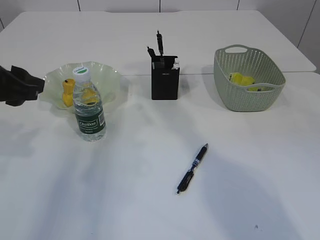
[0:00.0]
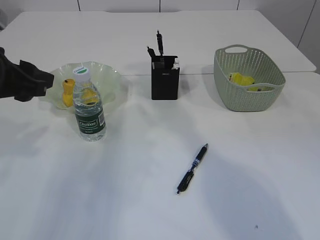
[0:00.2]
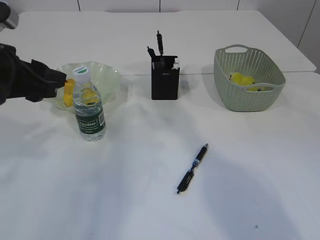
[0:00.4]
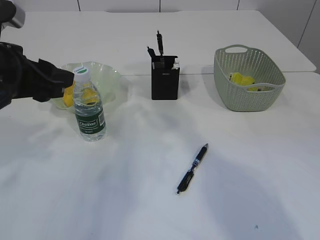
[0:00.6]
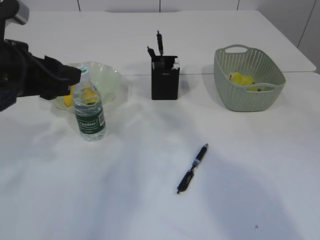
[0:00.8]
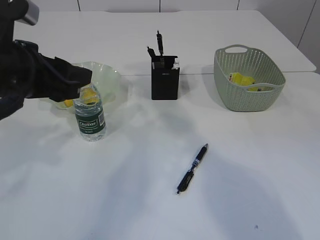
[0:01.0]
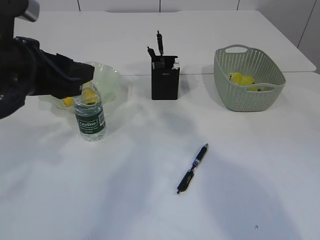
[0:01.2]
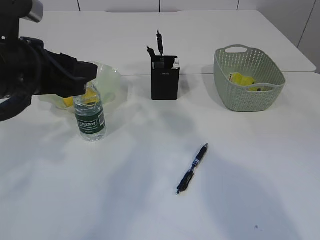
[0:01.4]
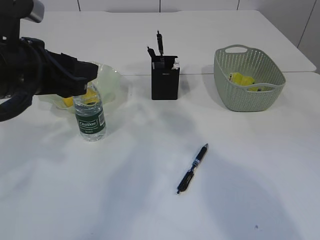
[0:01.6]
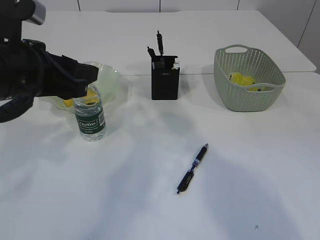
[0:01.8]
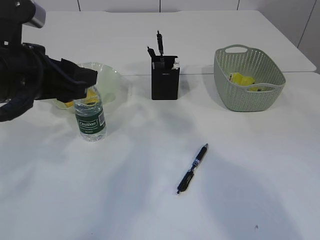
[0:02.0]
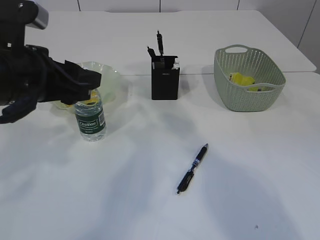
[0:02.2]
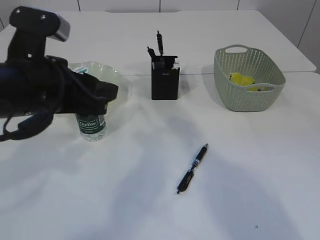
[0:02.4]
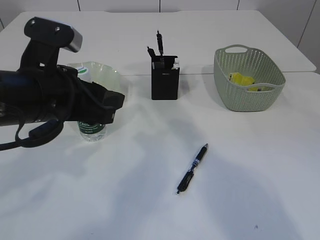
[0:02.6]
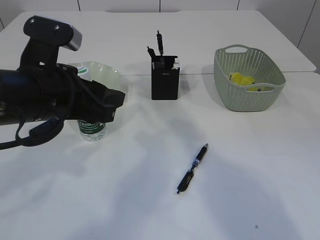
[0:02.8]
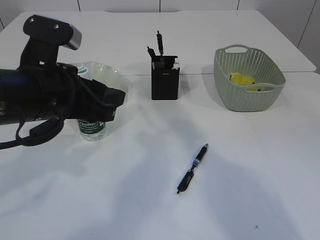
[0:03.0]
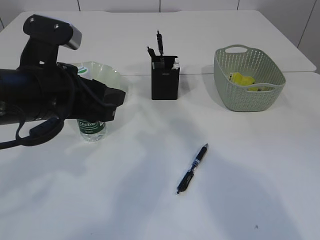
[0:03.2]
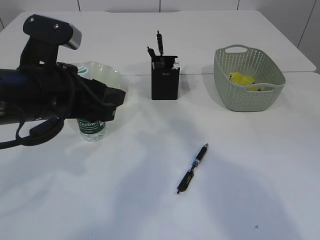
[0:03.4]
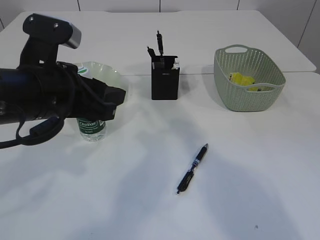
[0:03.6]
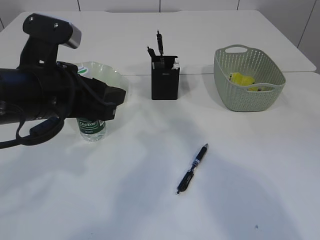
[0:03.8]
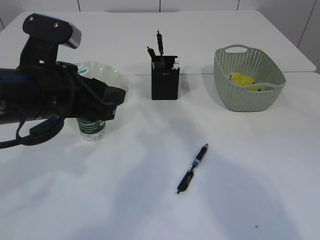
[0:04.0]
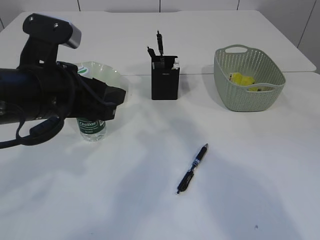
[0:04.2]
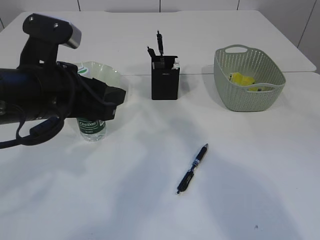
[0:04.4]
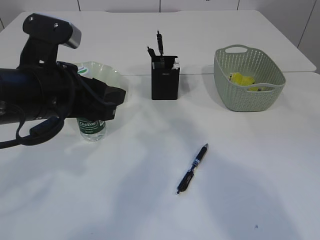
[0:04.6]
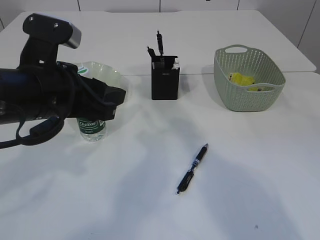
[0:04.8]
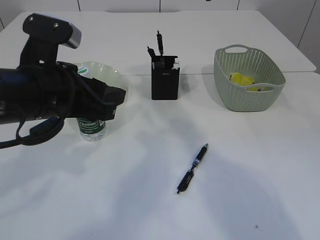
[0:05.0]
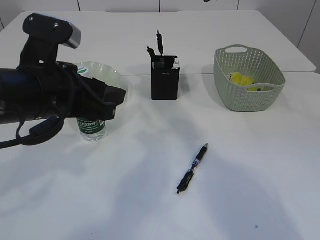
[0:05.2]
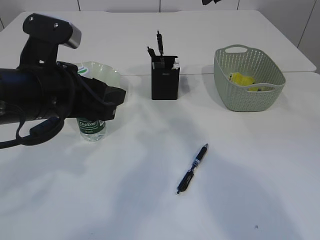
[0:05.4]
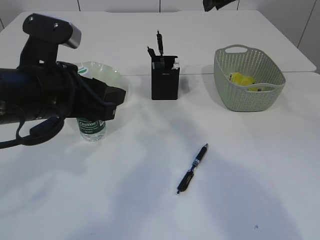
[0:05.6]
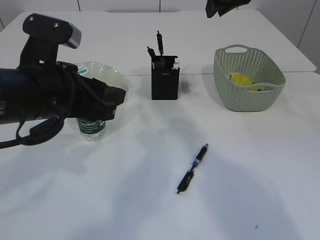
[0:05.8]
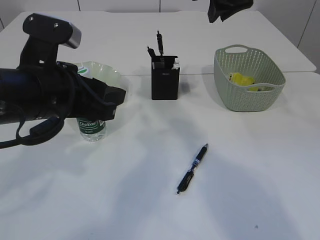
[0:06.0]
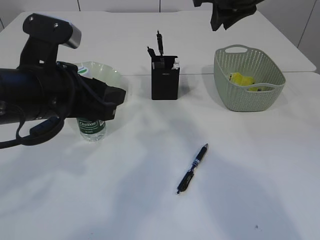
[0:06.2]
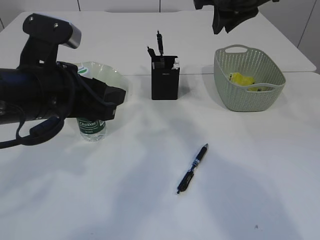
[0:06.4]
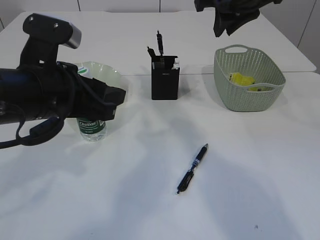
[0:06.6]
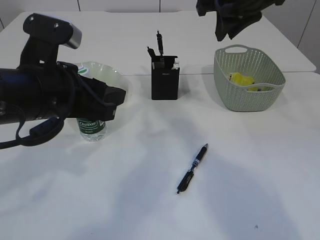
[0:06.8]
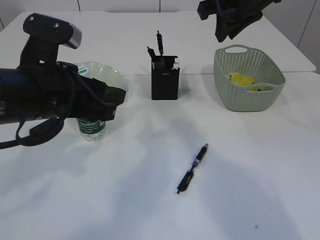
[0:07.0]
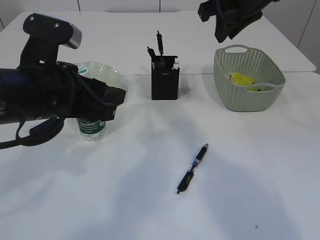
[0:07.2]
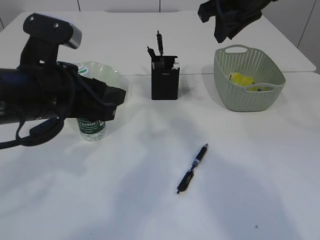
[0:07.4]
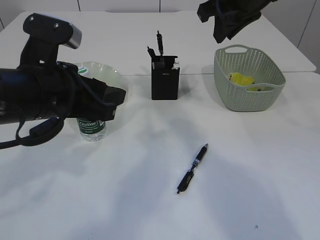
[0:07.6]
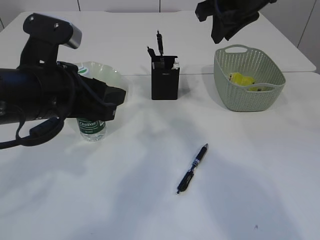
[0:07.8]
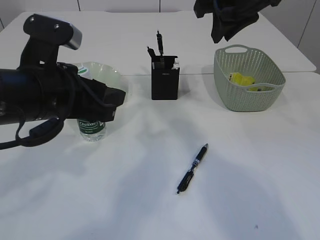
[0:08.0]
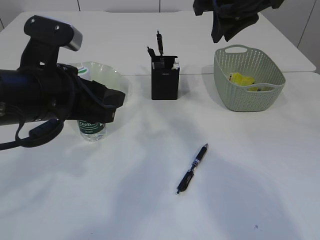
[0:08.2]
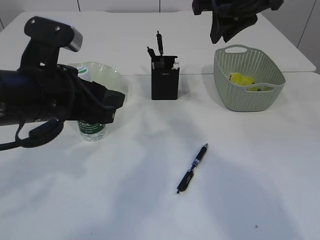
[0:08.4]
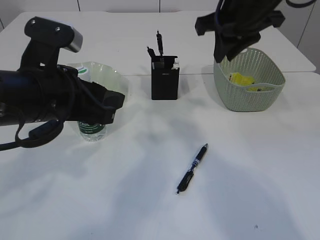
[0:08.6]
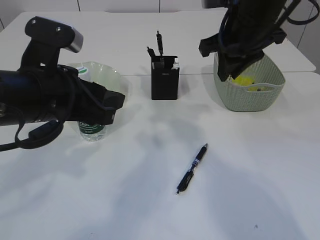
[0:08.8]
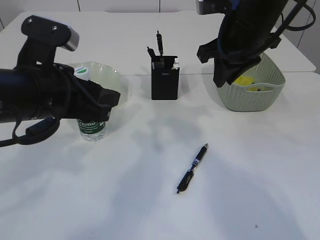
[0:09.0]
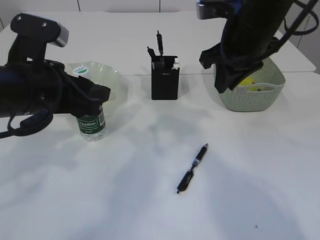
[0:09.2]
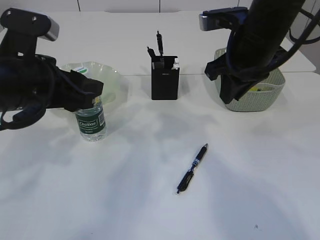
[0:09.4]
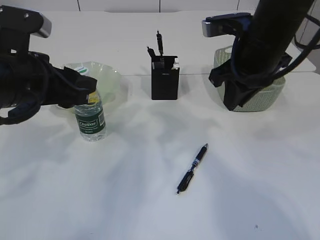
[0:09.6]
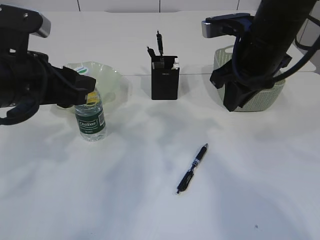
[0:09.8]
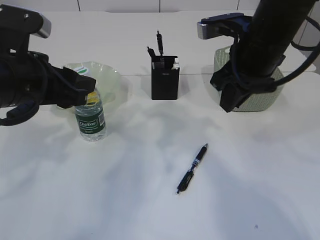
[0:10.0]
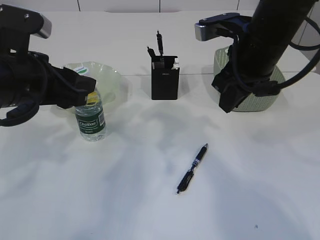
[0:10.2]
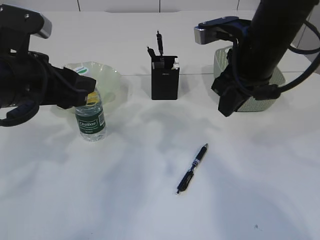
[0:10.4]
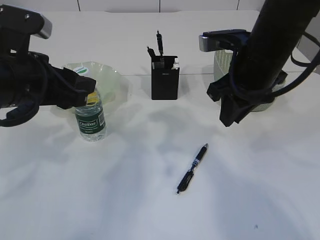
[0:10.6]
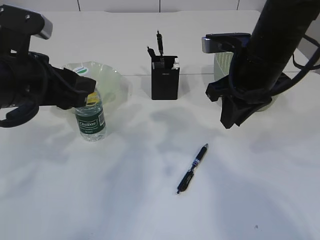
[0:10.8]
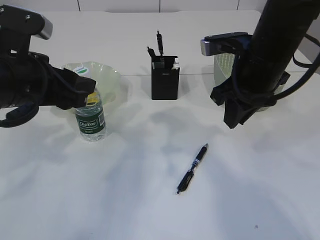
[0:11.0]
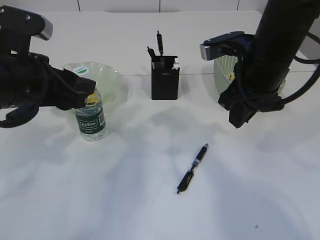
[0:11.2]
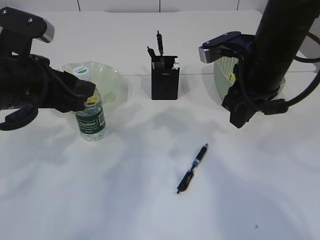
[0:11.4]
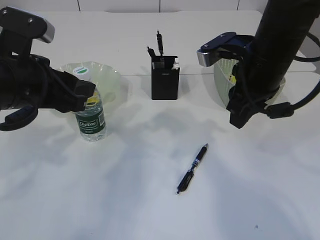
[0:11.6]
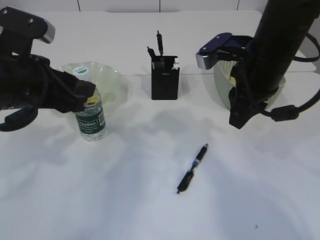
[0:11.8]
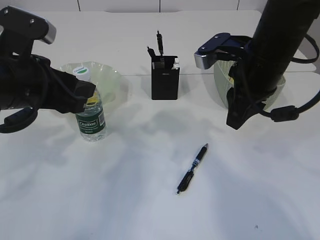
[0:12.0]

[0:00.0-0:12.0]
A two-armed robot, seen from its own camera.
0:00.0 to 0:01.6: The left gripper goes roughly 5 cm to the right.
0:01.6 to 0:03.0: The grippers move only a little.
0:03.0 to 0:04.4: Both grippers stay put.
0:04.4 to 0:06.0: The grippers stay close to where they were, moving slightly.
0:06.0 to 0:07.6: The grippers move only a little.
0:07.6 to 0:09.0: The right gripper travels downward by about 5 cm.
0:09.0 to 0:10.4: The grippers stay close to where they were, moving slightly.
0:10.4 to 0:12.0: The grippers make only small movements.

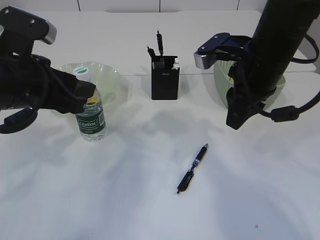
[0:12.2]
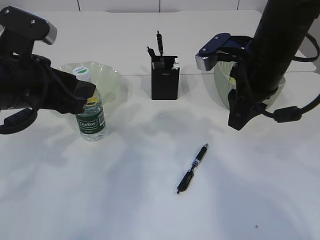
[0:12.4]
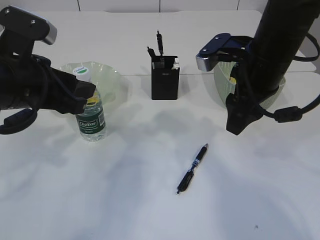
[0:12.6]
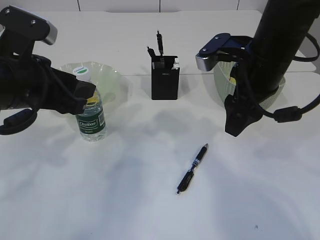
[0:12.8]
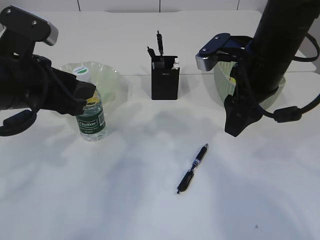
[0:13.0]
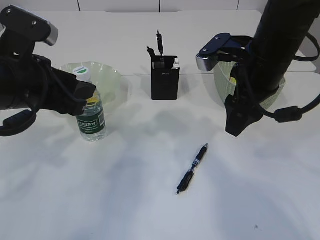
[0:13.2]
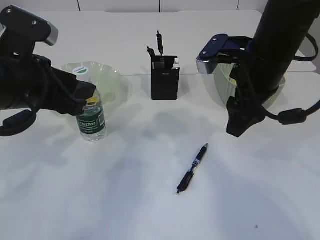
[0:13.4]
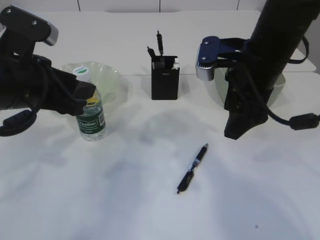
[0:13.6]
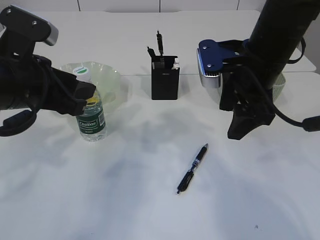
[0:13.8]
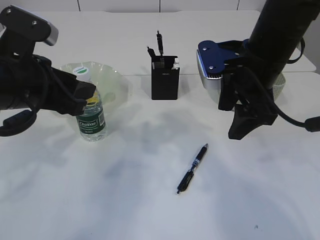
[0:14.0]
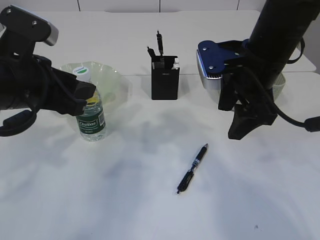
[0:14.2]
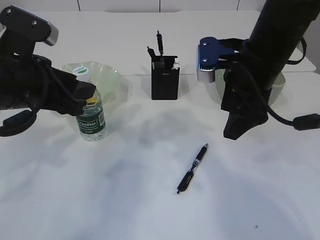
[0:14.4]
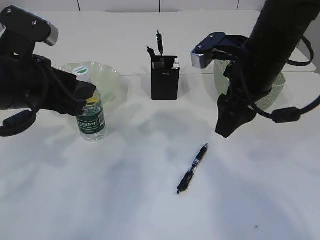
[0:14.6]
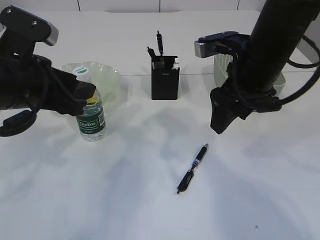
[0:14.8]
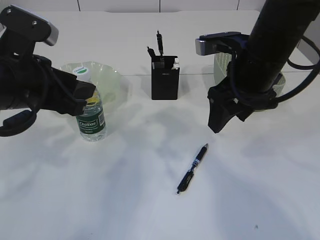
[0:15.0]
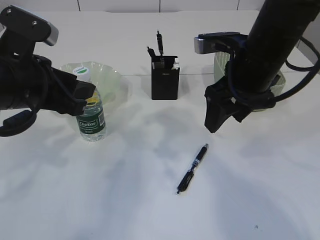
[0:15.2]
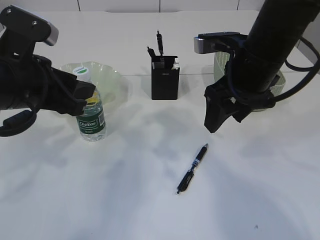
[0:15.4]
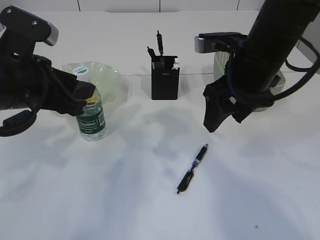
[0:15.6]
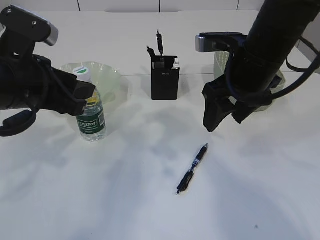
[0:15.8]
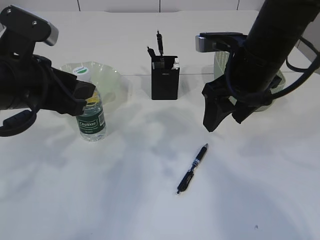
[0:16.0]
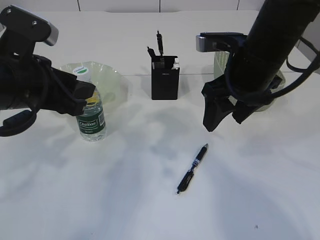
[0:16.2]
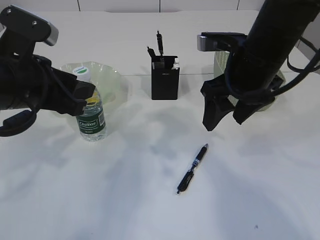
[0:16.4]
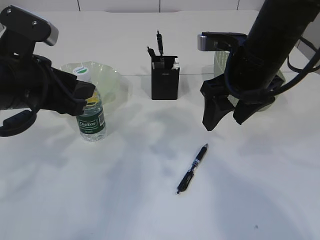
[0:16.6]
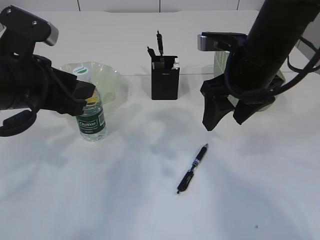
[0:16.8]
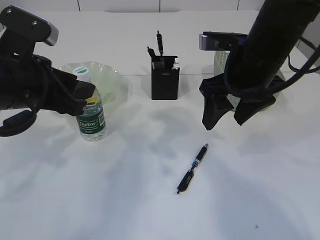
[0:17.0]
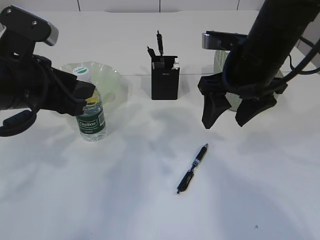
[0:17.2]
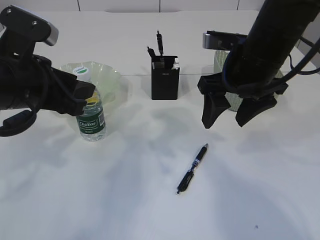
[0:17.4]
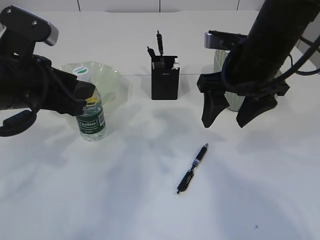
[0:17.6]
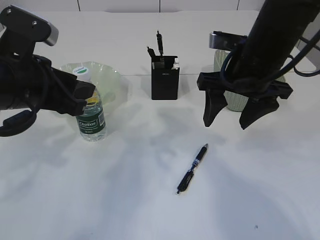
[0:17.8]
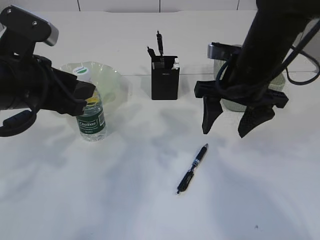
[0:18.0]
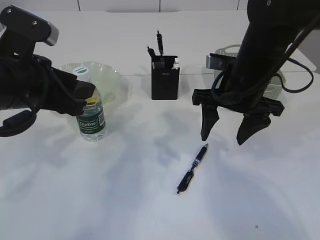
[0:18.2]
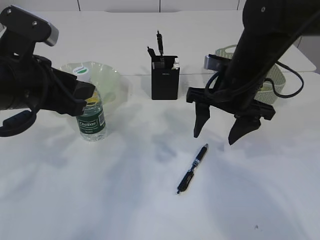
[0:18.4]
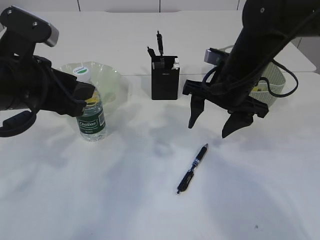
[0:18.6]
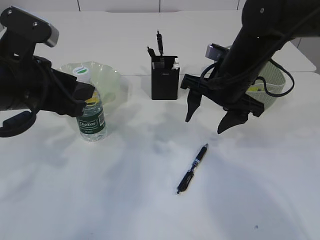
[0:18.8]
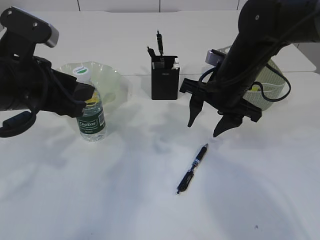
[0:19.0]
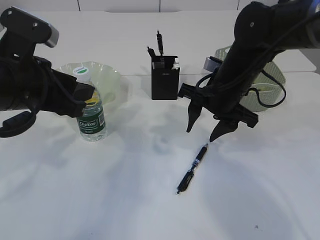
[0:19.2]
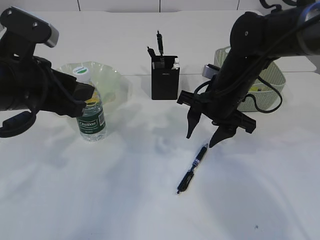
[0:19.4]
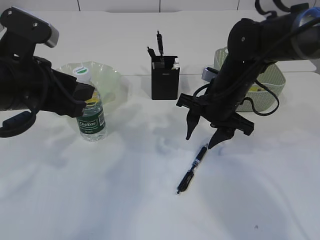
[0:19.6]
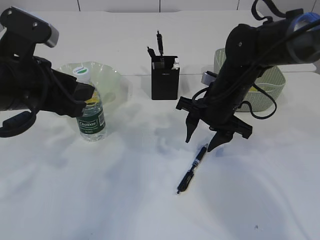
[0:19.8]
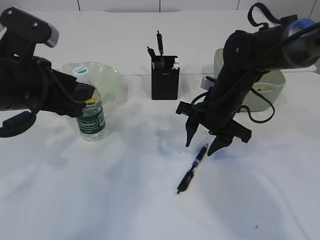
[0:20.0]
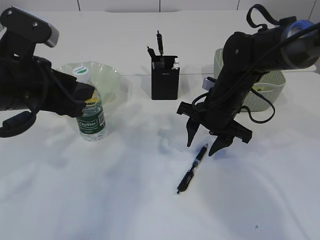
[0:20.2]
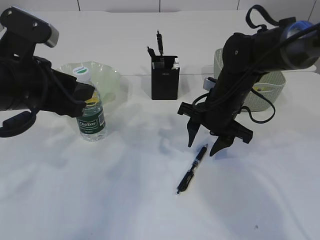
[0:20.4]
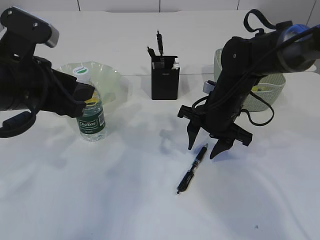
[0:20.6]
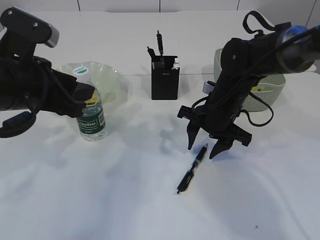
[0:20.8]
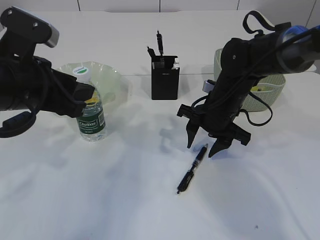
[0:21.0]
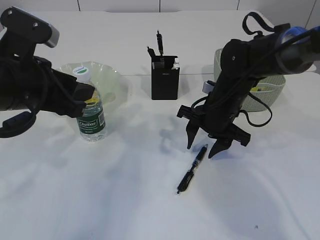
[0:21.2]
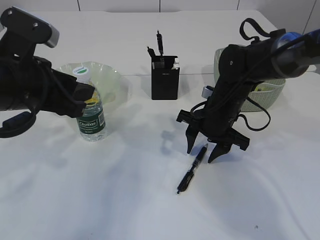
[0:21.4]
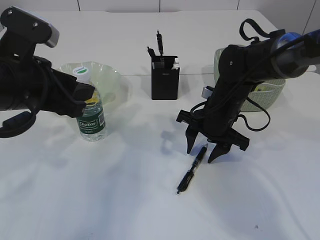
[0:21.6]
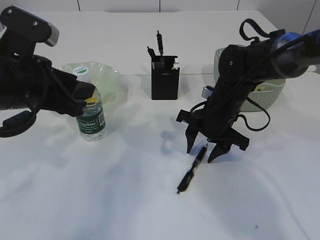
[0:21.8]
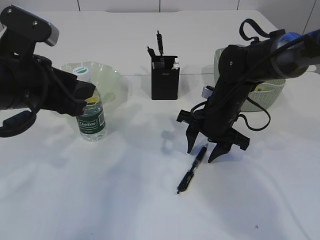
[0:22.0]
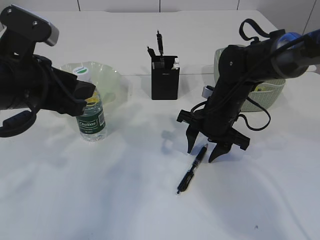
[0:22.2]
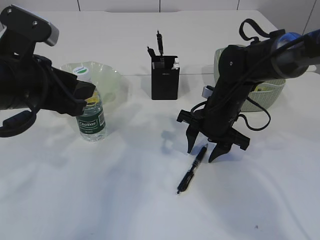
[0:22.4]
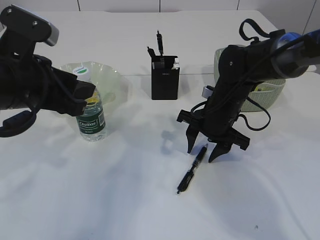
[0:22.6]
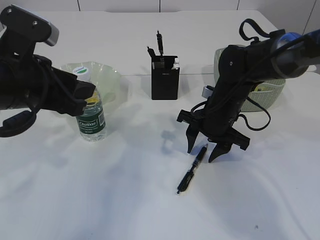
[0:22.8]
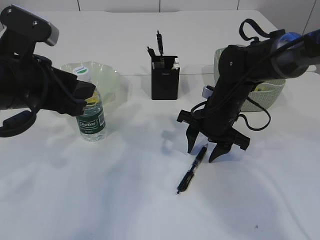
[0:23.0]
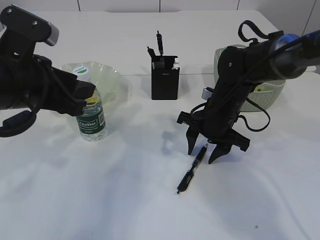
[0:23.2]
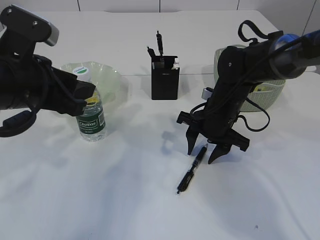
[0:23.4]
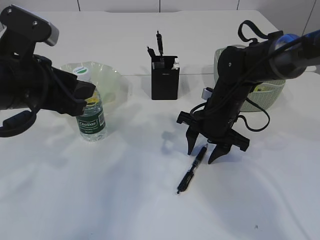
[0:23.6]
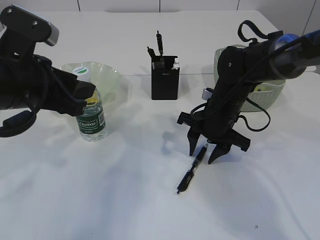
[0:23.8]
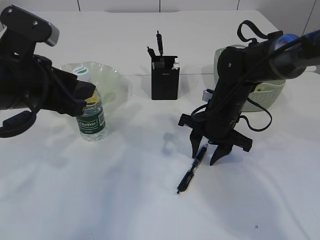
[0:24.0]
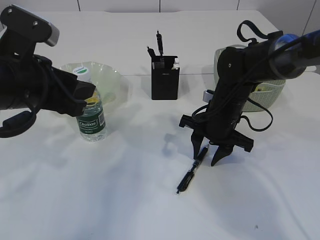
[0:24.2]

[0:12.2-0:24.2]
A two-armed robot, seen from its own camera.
0:12.2 to 0:13.8: The right gripper opens.
0:15.2 to 0:16.6: The grippers stay close to where they were, moving slightly.
0:18.2 to 0:19.8: The right gripper is displaced downward by some 5 cm.
0:19.8 to 0:21.2: There are only small adjustments of the grippers.
0:21.2 to 0:22.6: The two grippers keep their place.
0:22.6 to 0:24.2: Neither gripper changes place.
